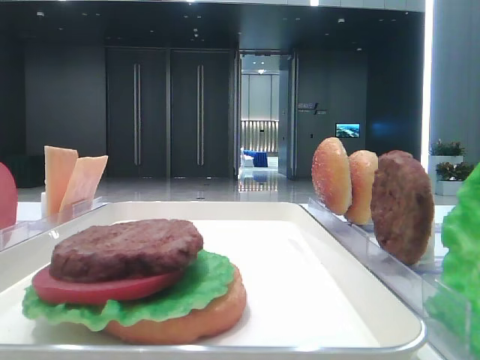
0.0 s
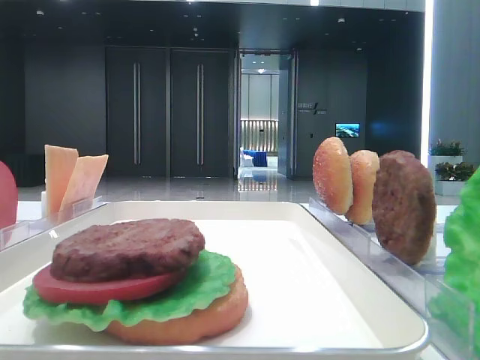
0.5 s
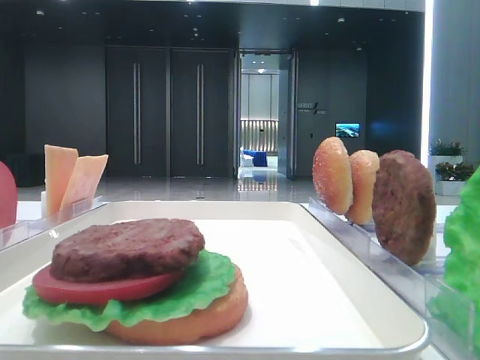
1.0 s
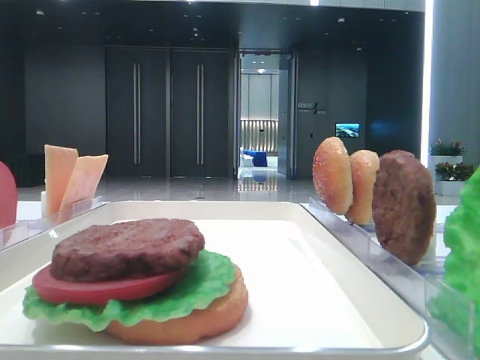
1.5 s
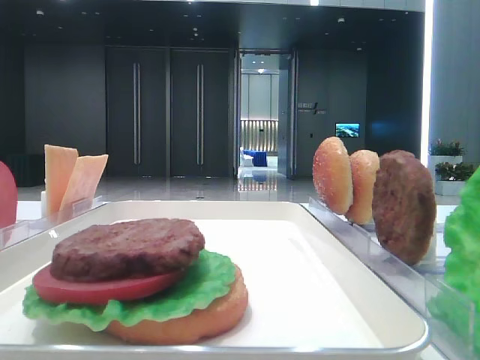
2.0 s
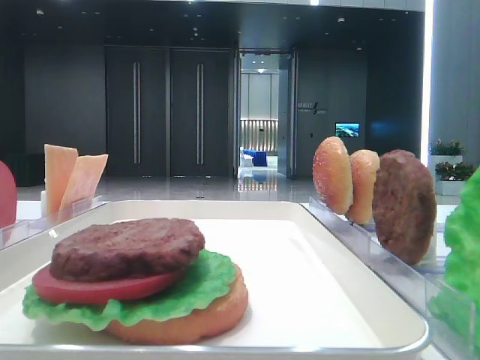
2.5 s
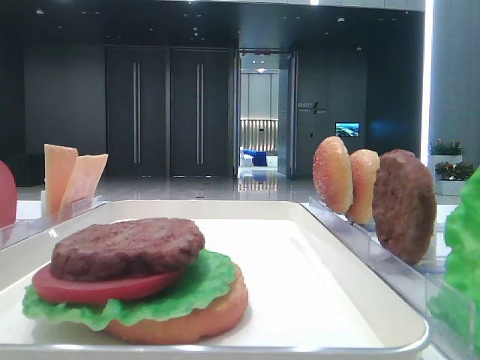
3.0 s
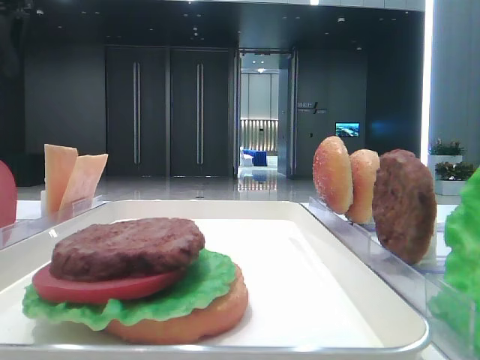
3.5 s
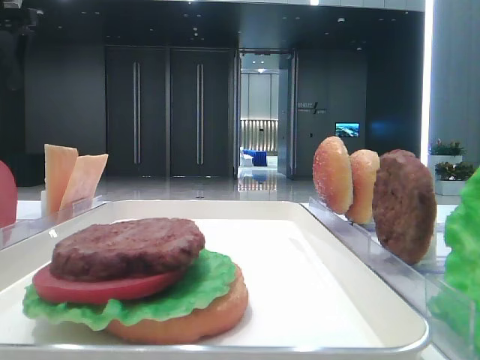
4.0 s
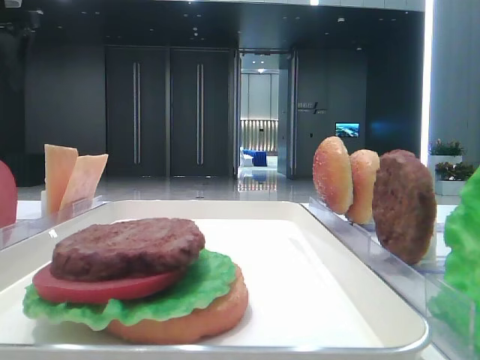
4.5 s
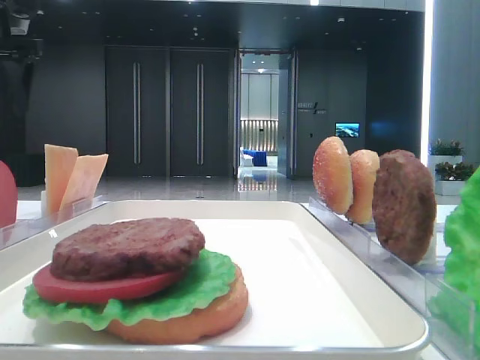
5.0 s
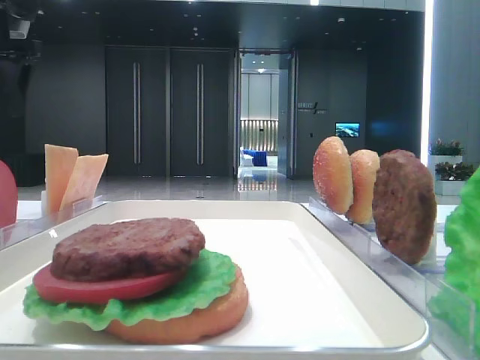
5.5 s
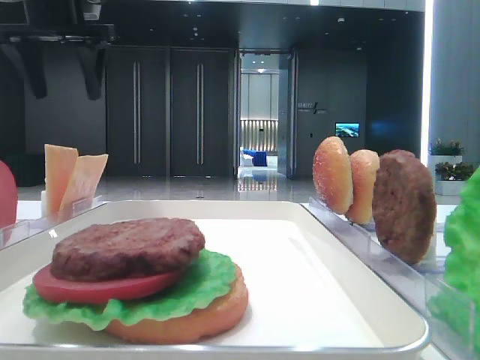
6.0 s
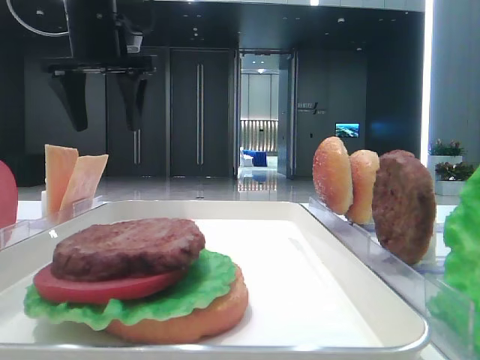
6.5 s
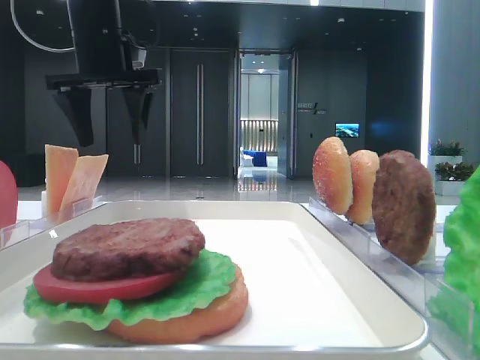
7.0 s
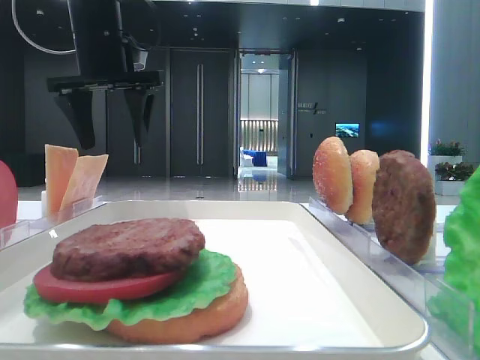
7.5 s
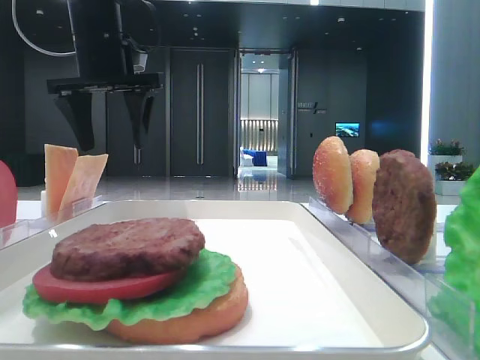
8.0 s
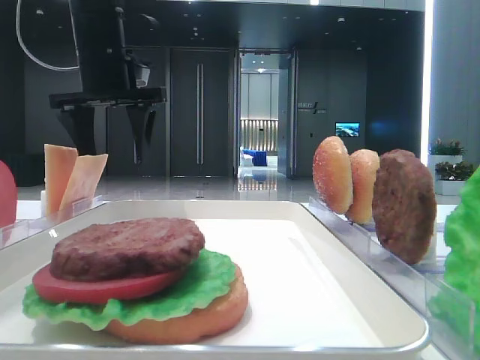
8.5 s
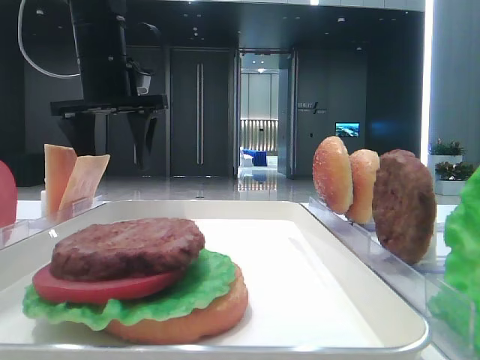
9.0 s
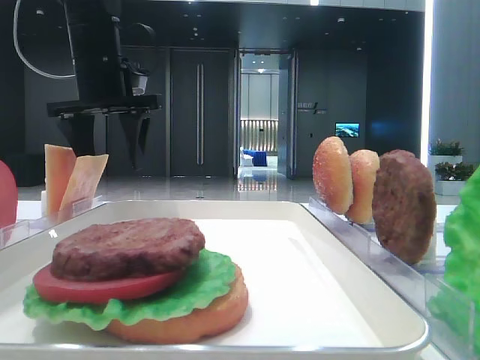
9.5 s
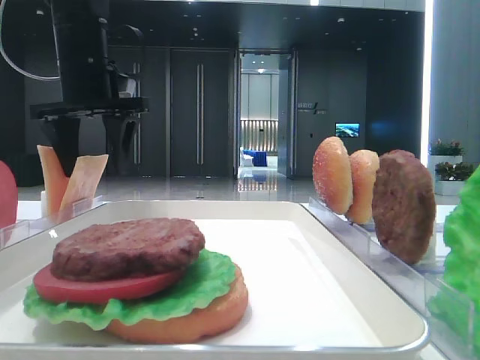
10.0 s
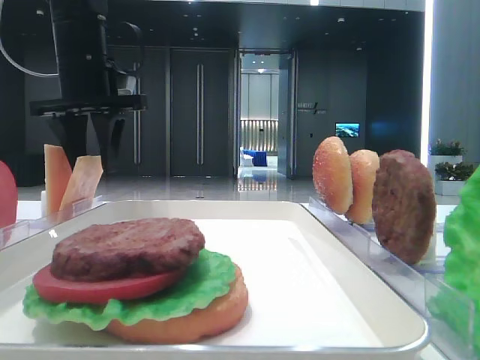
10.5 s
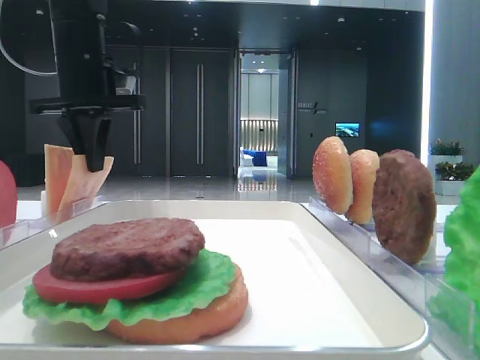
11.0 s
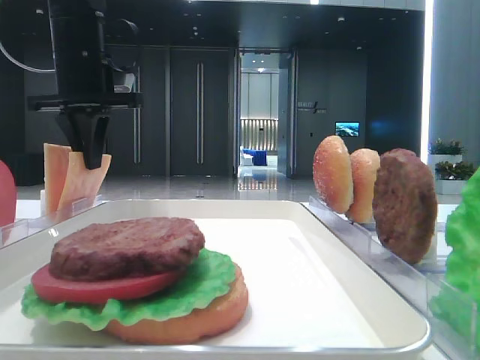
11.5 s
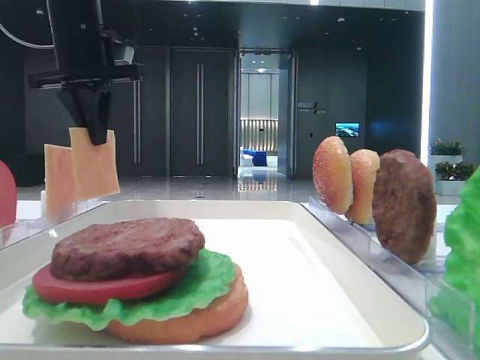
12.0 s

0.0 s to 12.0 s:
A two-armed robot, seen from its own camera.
Step, 0.0 to 11.5 s: Pick up the cheese slice with the left hand.
4.0 to 6.0 s: The left gripper is displaced to the right by roughly 10 cm.
6.0 to 8.0 s: The left gripper heads downward and to the right, covering about 10 cm.
8.0 to 10.0 s: There are only small adjustments of the grippers.
10.0 to 12.0 s: The left gripper closes.

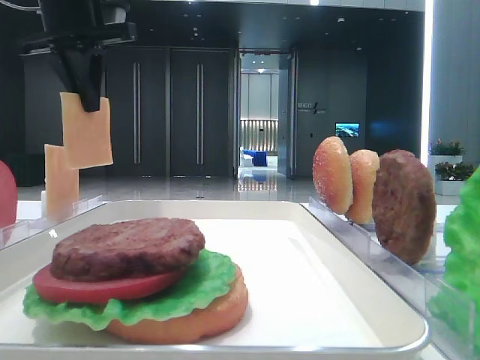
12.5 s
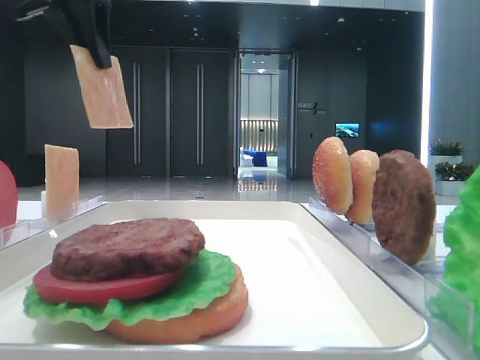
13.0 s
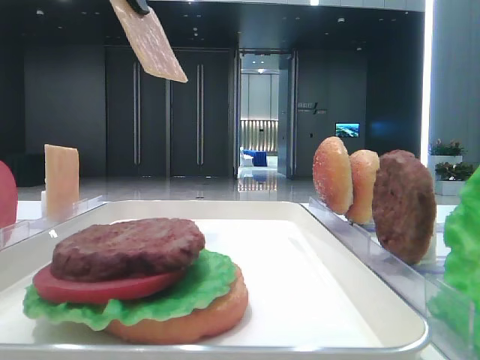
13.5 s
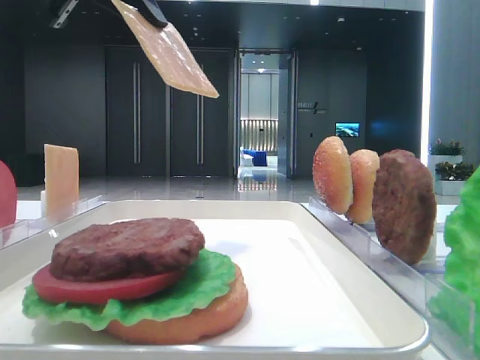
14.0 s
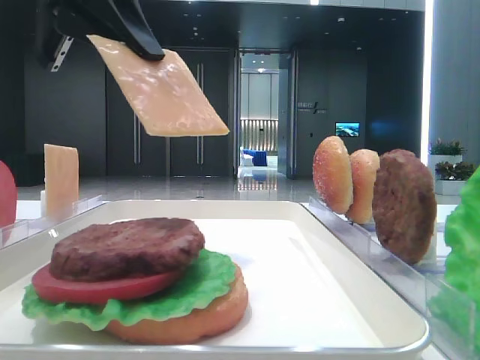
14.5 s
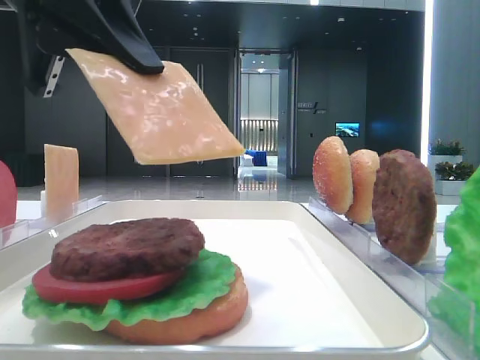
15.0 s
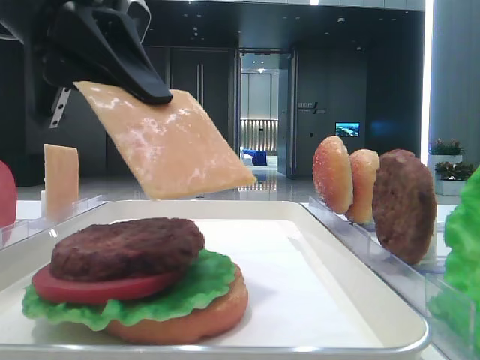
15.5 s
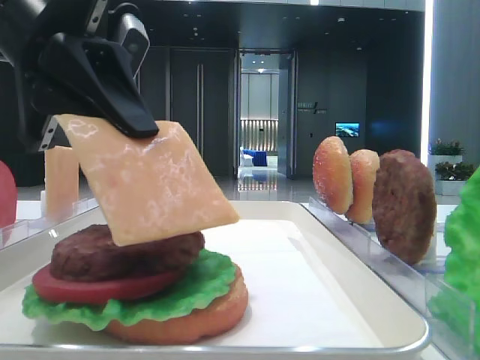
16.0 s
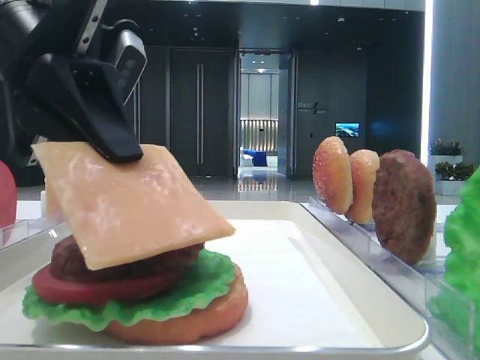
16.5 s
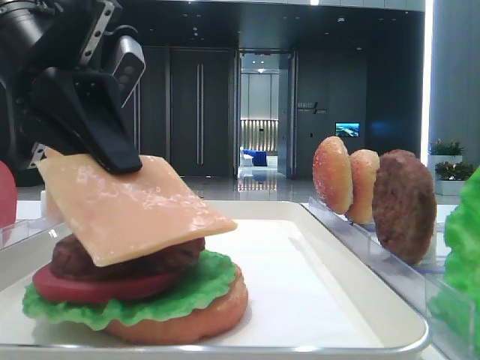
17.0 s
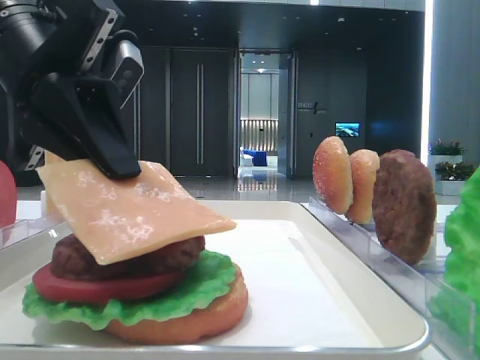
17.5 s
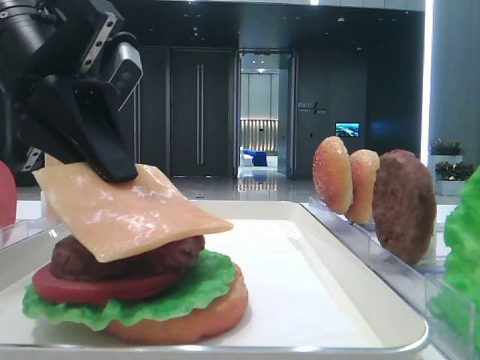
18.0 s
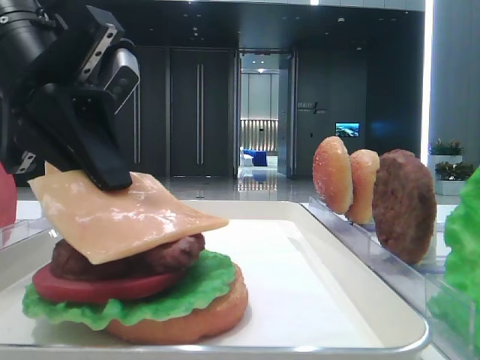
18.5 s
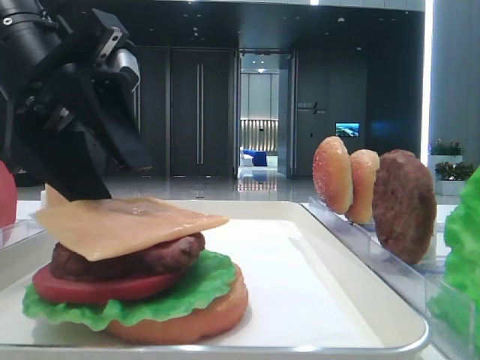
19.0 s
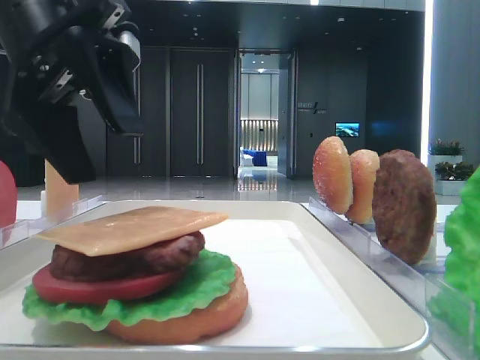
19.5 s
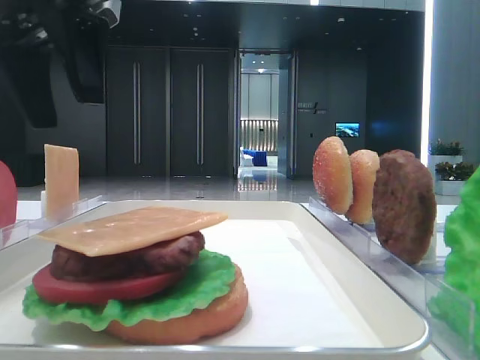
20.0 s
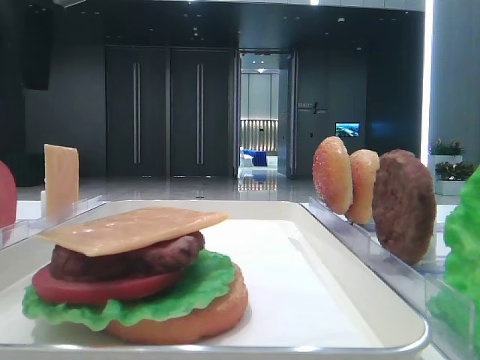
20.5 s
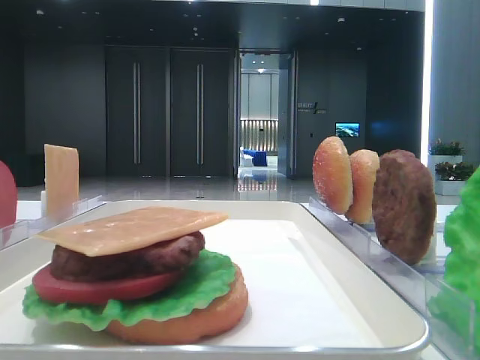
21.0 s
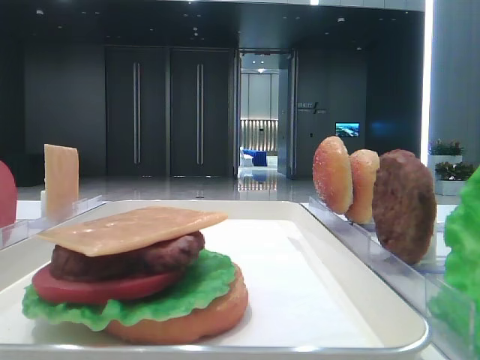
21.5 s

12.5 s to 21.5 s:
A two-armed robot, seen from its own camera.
Step, 12.5 to 19.0 s: Place the cheese slice on the patty with the left hand.
12.5 to 14.5 s: The left gripper goes about 10 cm backward.
14.5 to 17.0 s: The left gripper goes some 10 cm downward.
17.0 to 19.5 s: The left gripper opens its fingers.
19.5 to 21.5 s: The left gripper travels to the left and upward by some 20 cm.

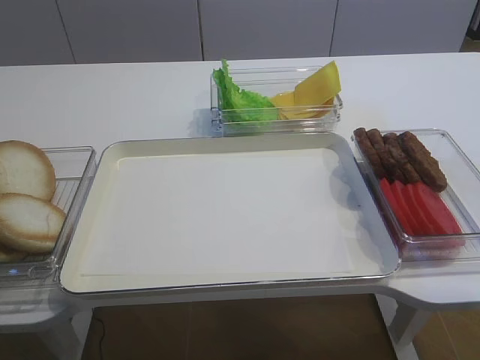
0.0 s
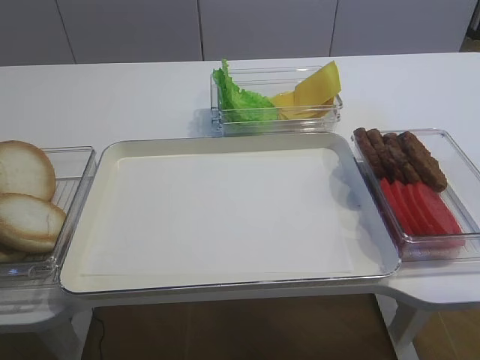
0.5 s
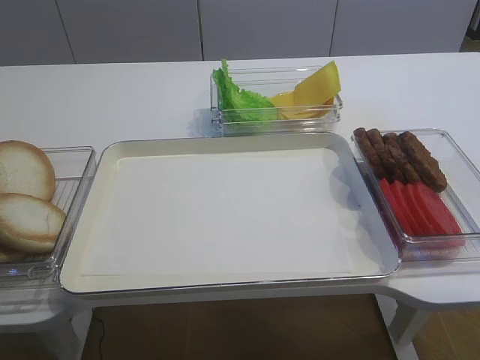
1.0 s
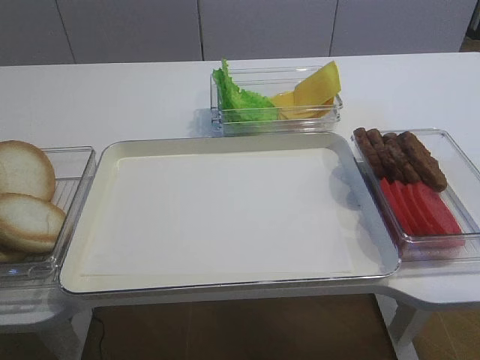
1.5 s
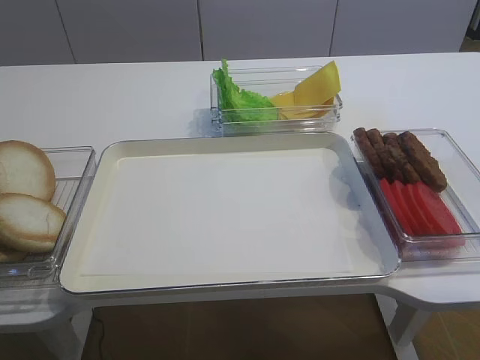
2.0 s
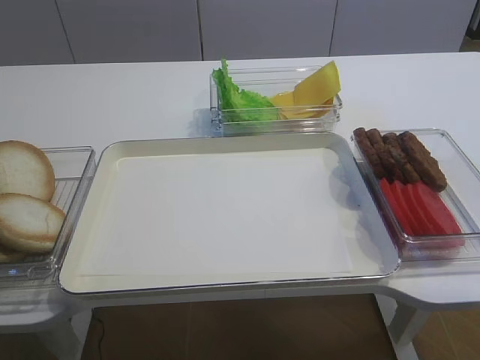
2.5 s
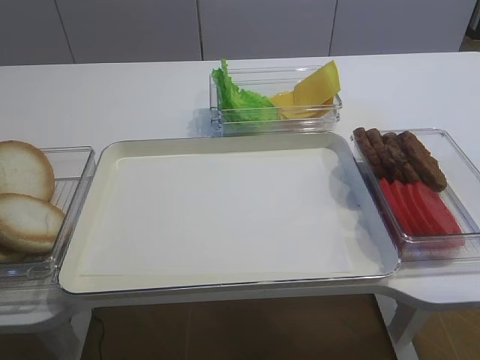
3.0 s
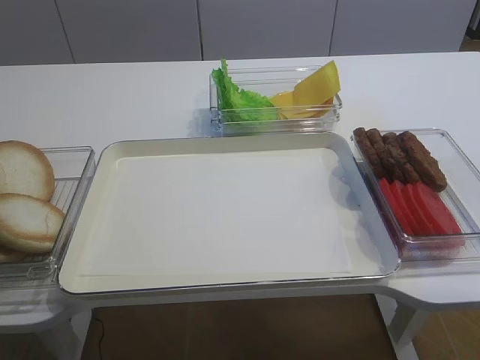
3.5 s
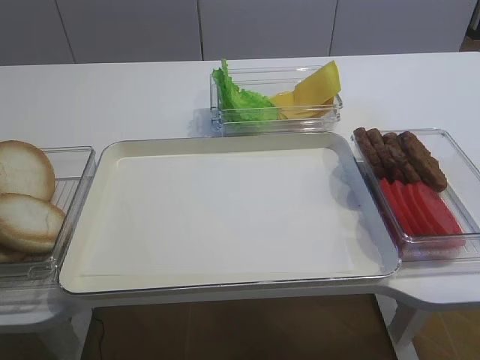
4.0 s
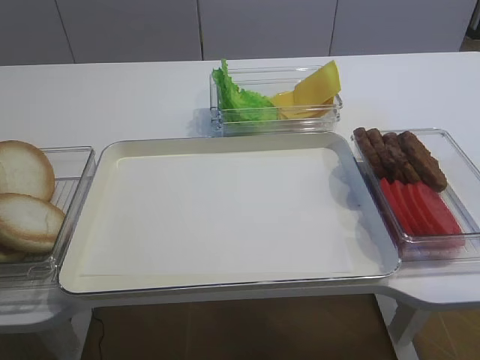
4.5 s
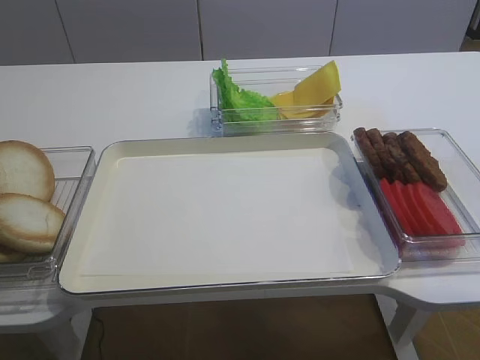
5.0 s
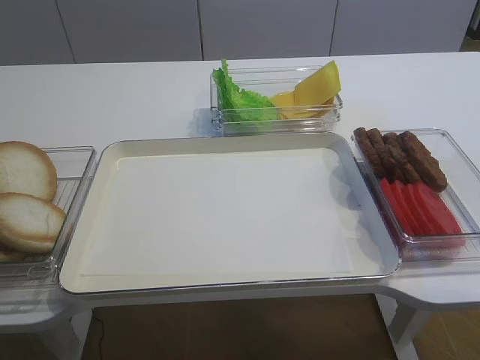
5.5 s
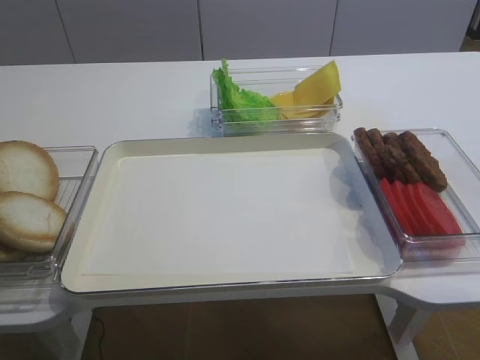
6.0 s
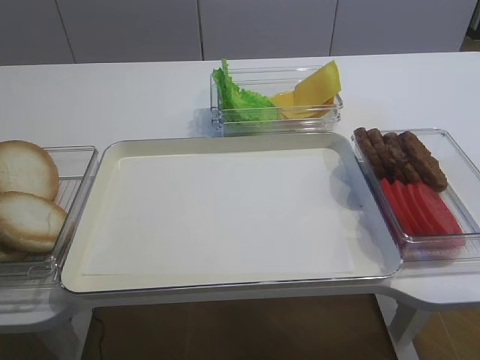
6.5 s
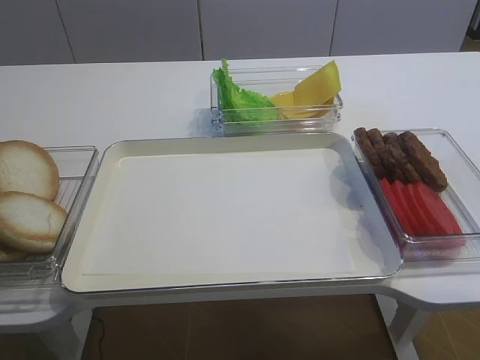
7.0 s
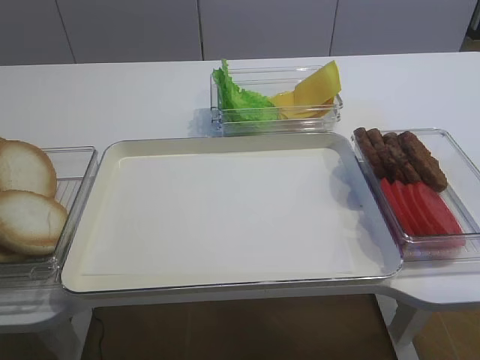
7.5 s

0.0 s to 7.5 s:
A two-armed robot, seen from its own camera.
5.5 to 7.5 s: The left gripper closes its fingers.
